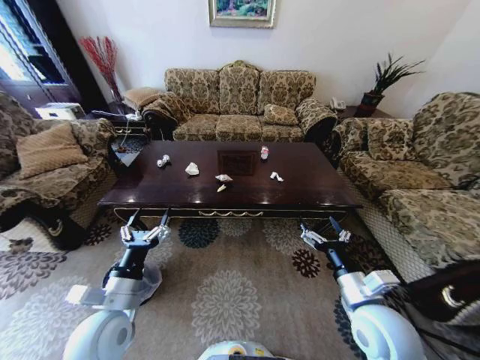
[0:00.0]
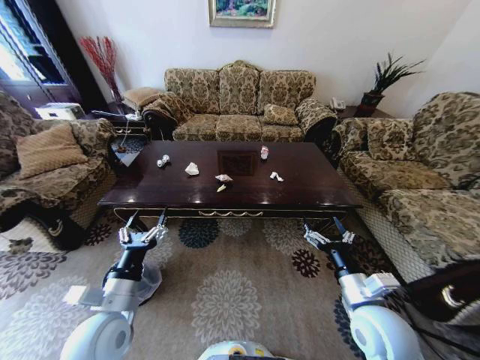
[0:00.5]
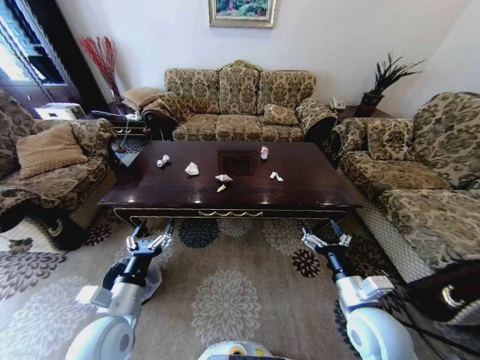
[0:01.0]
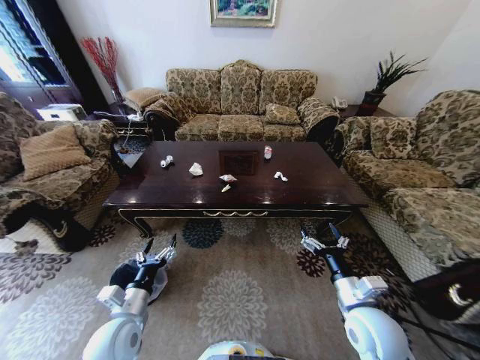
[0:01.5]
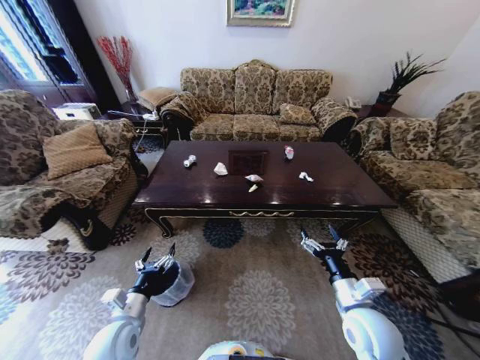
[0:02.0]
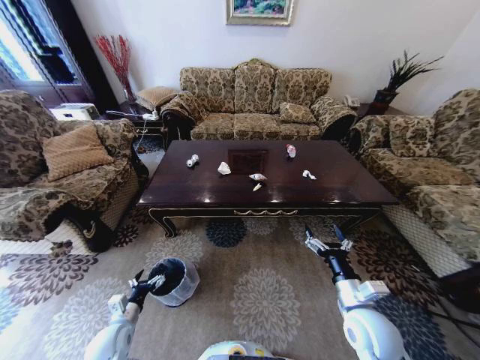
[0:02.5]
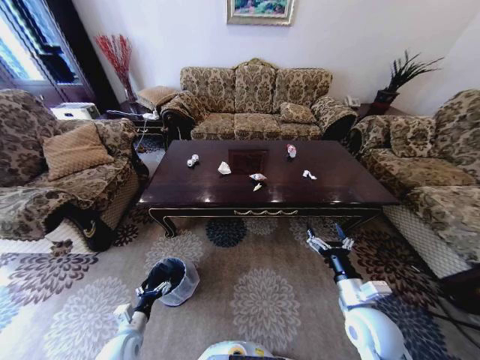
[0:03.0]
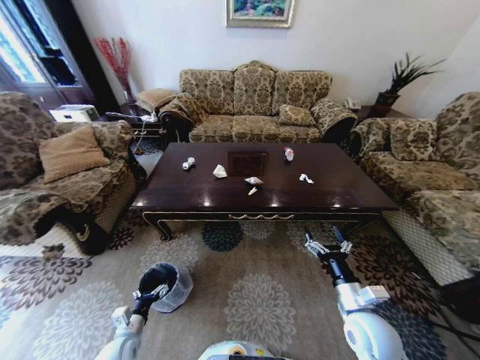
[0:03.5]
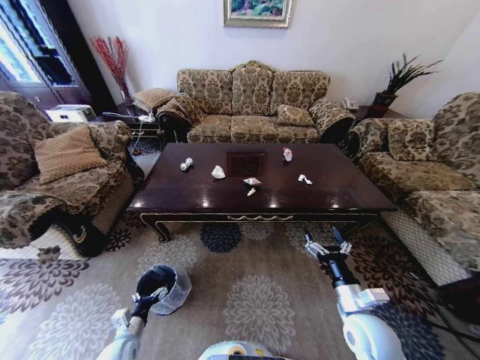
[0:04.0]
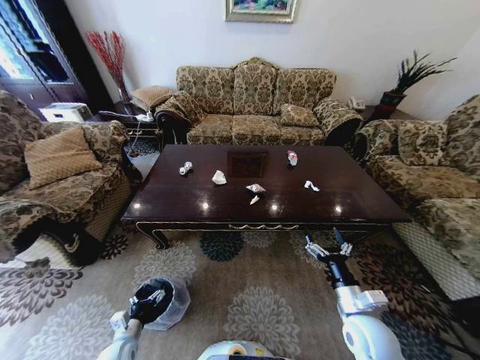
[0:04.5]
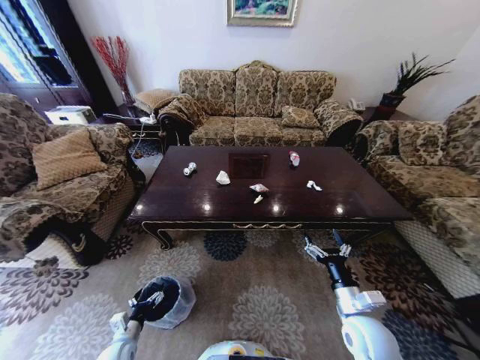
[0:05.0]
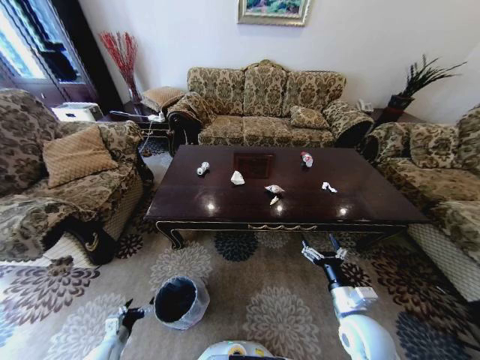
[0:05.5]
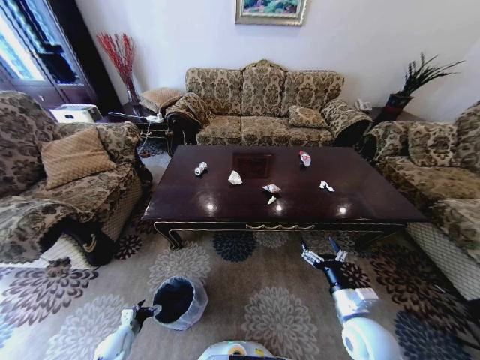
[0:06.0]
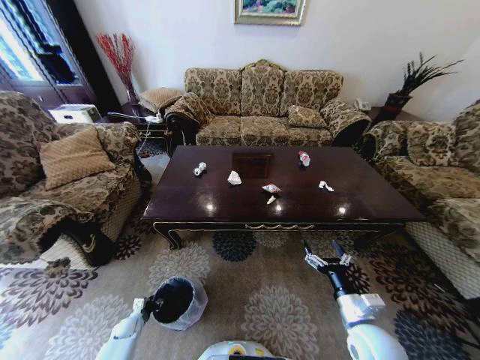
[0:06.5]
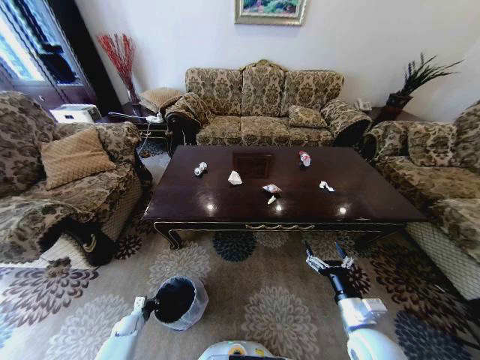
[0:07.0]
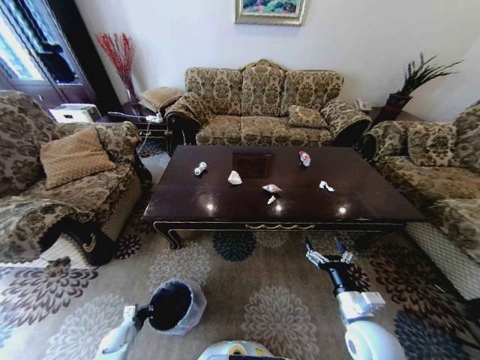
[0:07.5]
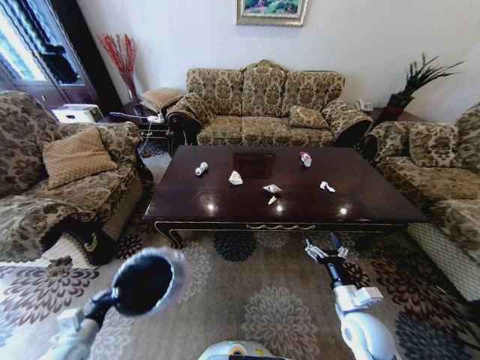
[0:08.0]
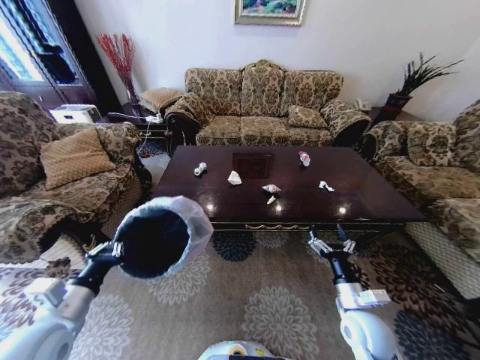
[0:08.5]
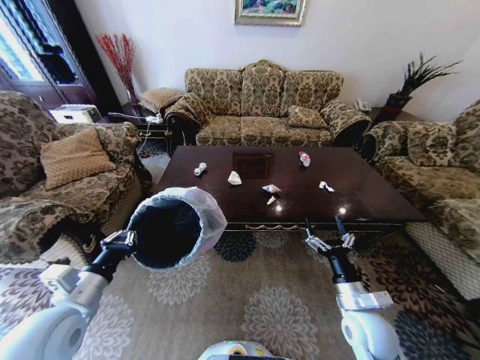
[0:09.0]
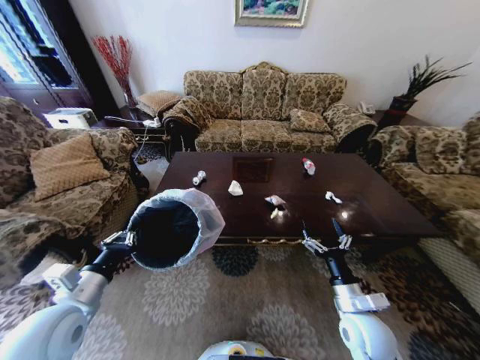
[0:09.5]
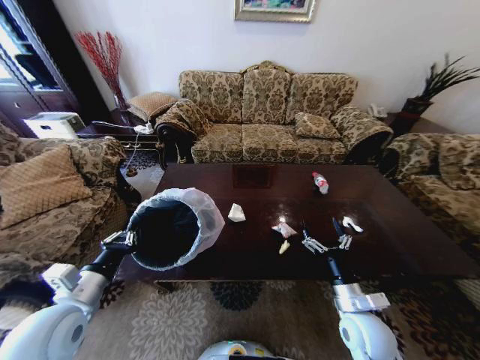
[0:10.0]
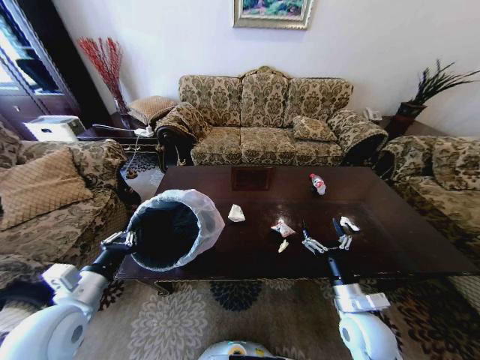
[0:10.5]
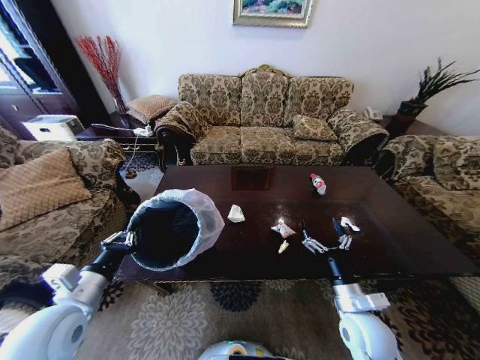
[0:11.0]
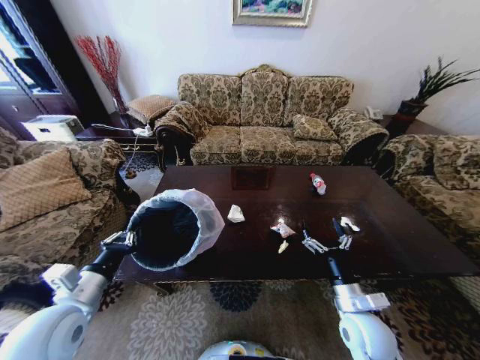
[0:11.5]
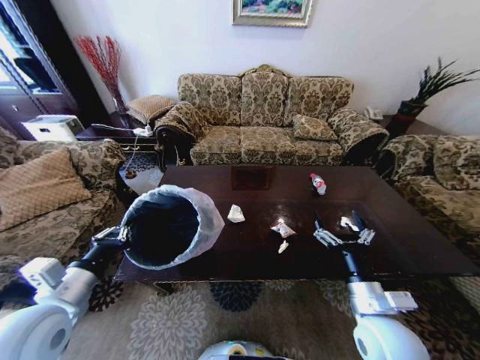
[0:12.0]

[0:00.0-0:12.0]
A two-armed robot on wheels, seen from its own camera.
Task of the whole recording: Move to the front of the table and place the trash on the table into the trash bin.
0:02.0 to 0:04.0: The left gripper moves downward, about 15 cm.
0:04.0 to 0:06.0: The left gripper heads downward and to the left, covering about 15 cm.
0:06.0 to 0:08.0: The left gripper moves upward, approximately 20 cm, and closes.
0:08.0 to 0:10.0: The left gripper moves upward and to the right, roughly 20 cm.
0:10.0 to 0:12.0: The right gripper shifts some 5 cm upward.

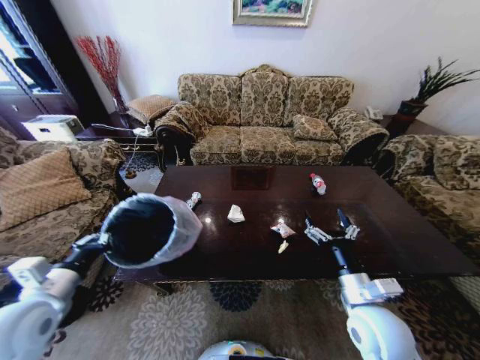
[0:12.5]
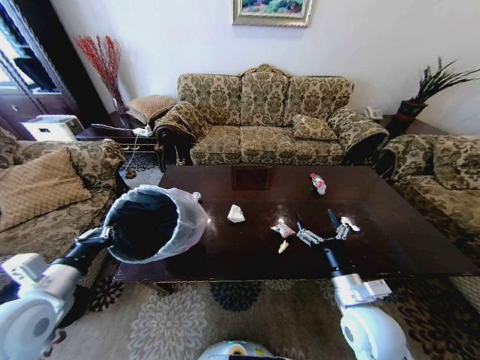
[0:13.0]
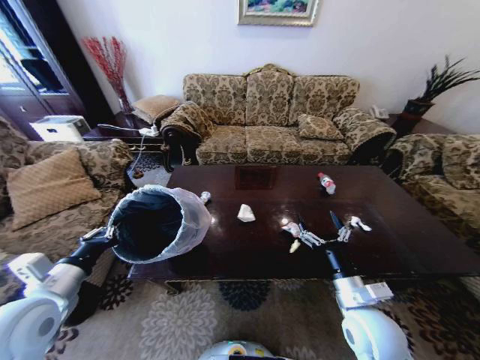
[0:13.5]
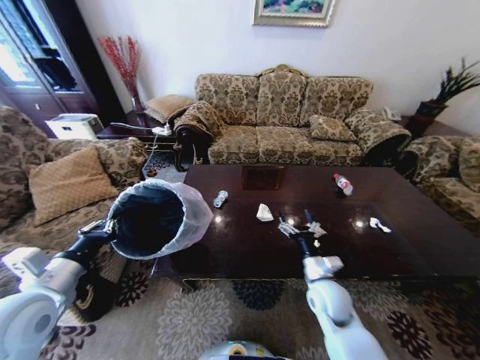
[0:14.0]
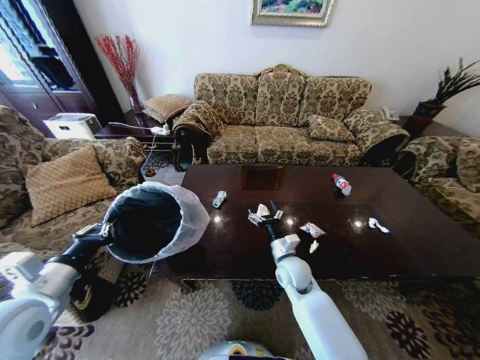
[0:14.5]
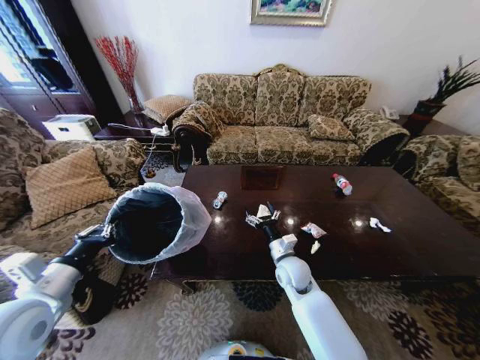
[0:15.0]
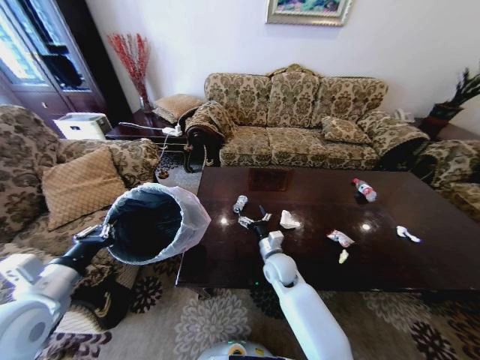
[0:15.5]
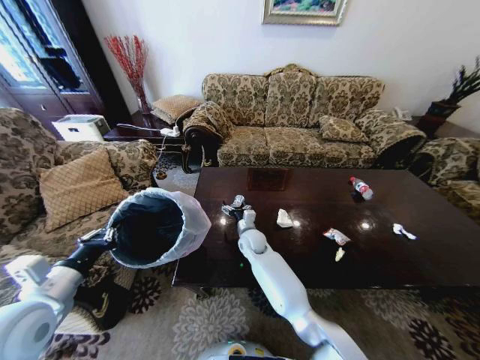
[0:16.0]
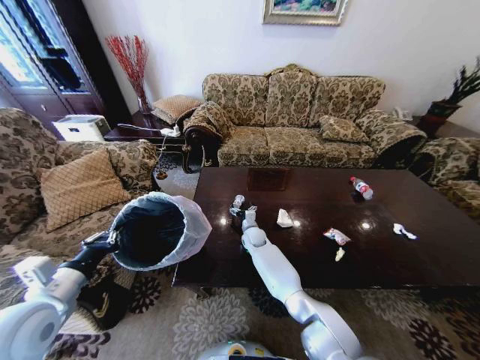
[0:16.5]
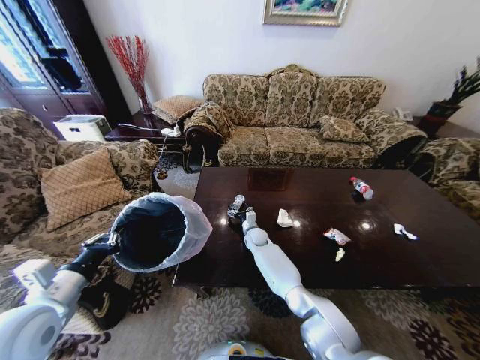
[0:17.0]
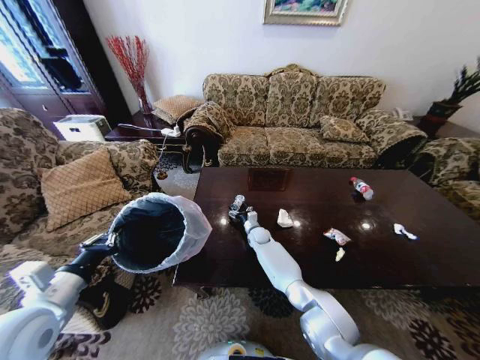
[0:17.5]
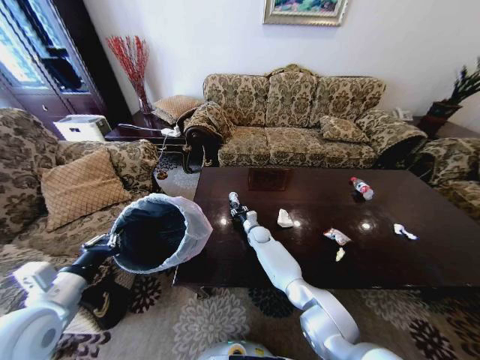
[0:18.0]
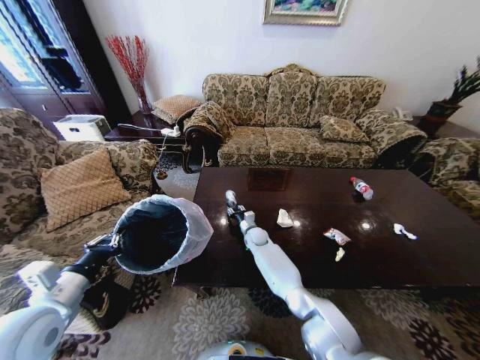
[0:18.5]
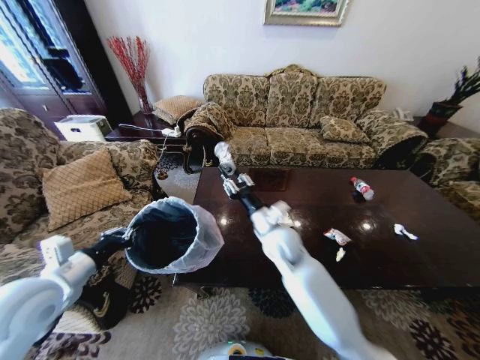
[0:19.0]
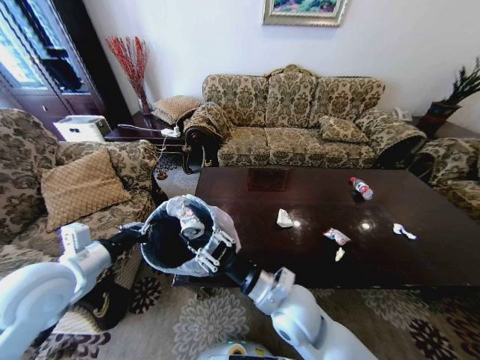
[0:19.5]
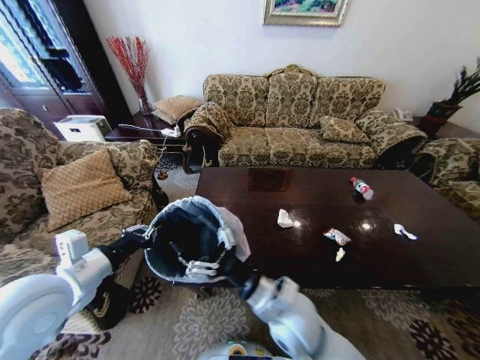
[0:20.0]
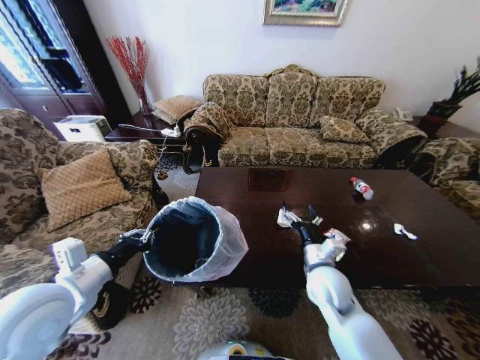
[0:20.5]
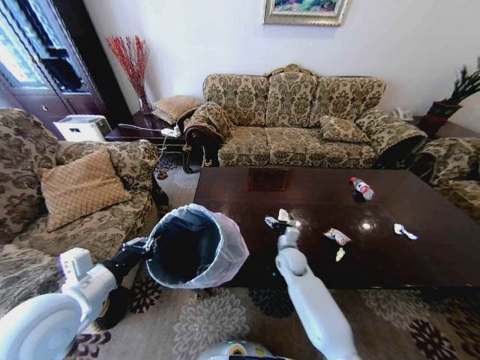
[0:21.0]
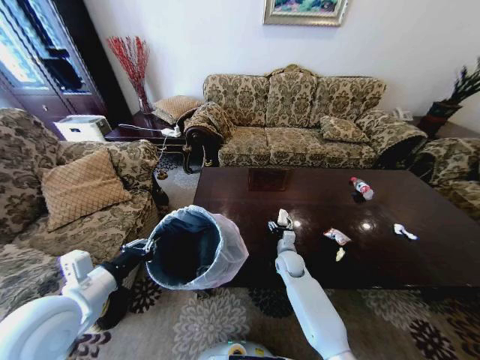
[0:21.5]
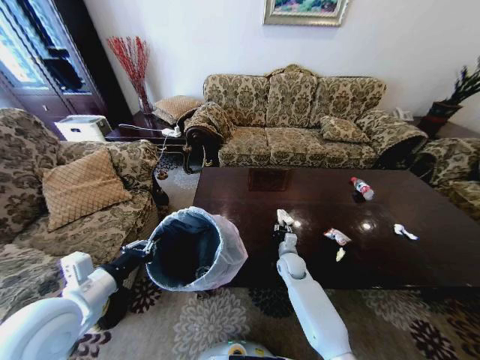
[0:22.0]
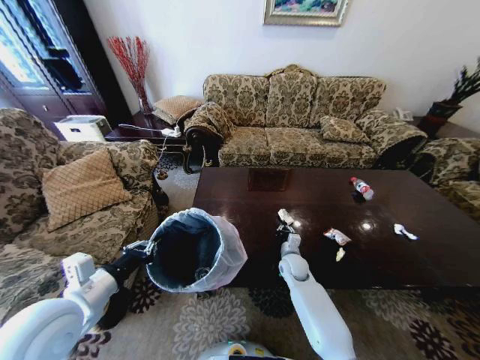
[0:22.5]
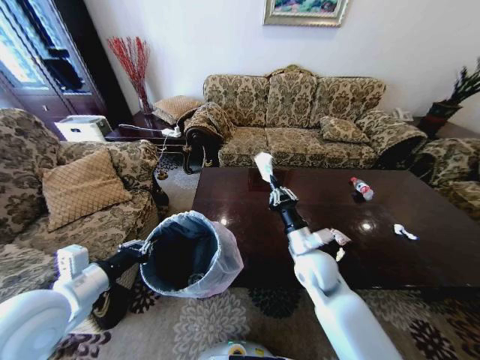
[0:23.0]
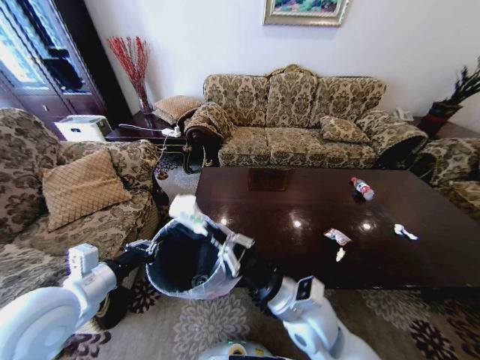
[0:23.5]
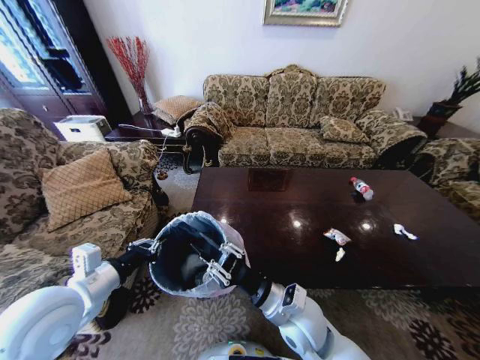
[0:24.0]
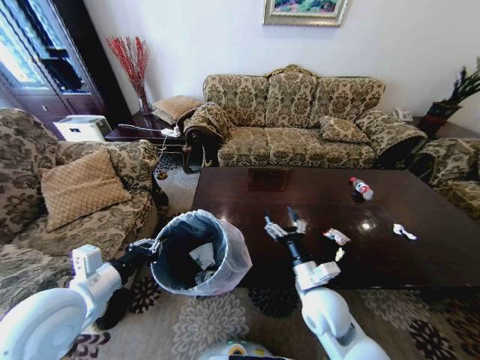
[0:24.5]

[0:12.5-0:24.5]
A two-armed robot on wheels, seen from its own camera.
Task of the whole recording: Move to the front of the table and place the trash on the table into the trash bin.
0:12.5 to 0:14.5: The right gripper heads forward, to the left and downward, covering approximately 20 cm.
0:14.5 to 0:16.5: The right gripper shifts approximately 20 cm forward, to the left and downward.
0:16.5 to 0:18.5: The right gripper closes its fingers.
0:18.5 to 0:20.5: The right gripper shifts roughly 30 cm backward, upward and to the right, and opens. The left gripper shifts by approximately 5 cm.
0:20.5 to 0:22.5: The right gripper shifts approximately 20 cm downward and forward, and closes its fingers.
0:22.5 to 0:24.5: The right gripper goes about 20 cm backward and upward, and opens.

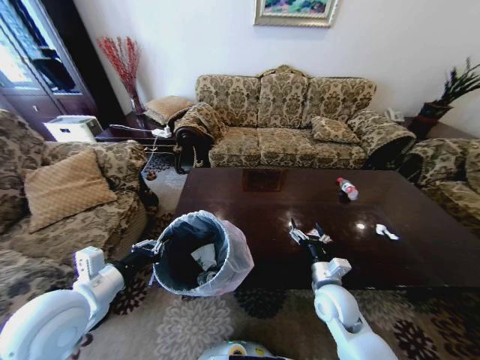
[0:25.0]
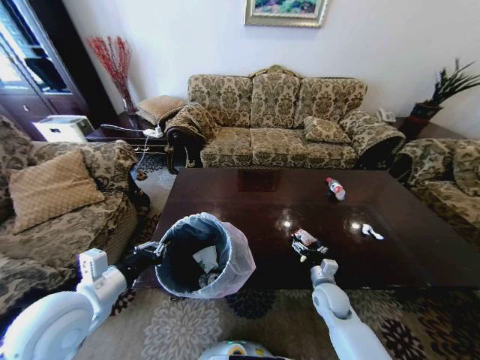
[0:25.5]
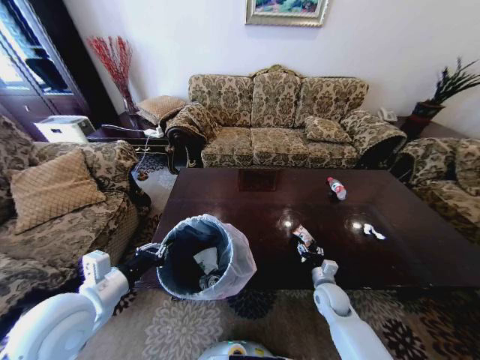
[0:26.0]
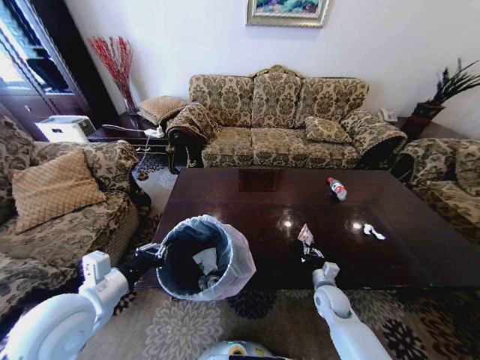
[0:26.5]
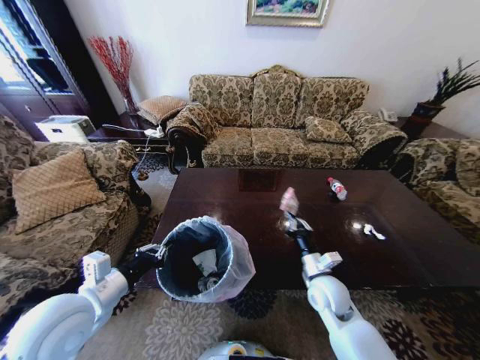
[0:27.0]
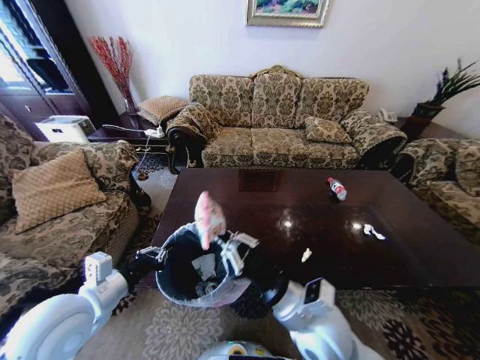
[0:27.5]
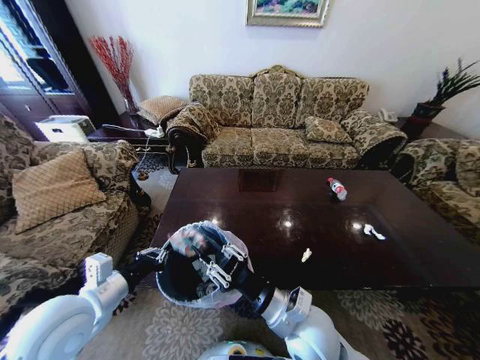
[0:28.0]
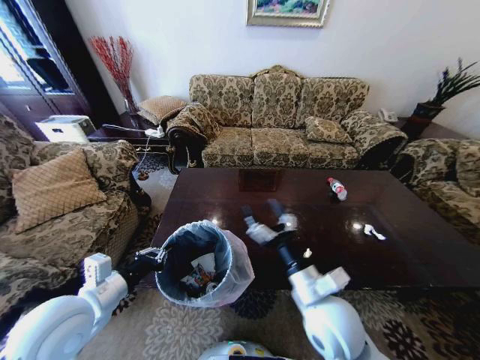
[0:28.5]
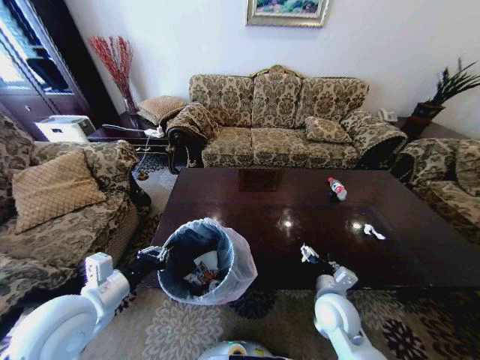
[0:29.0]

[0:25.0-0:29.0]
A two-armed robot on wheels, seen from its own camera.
Task of the whole recording: Move to the front of the table and place the trash on the table into the trash bin.
0:25.0 to 0:27.0: The right gripper travels downward and back again, approximately 10 cm each way, and closes.
0:27.0 to 0:29.0: The right gripper travels upward and back again, about 10 cm each way, and opens.
